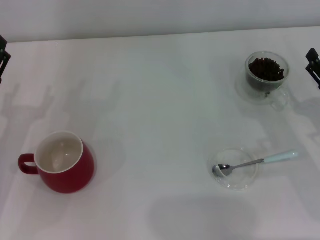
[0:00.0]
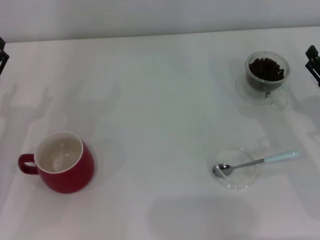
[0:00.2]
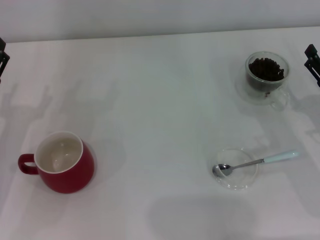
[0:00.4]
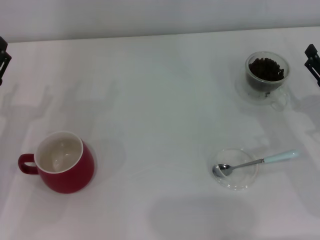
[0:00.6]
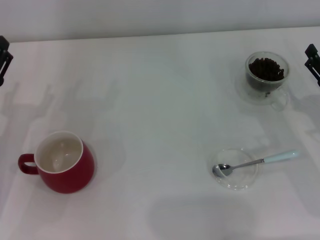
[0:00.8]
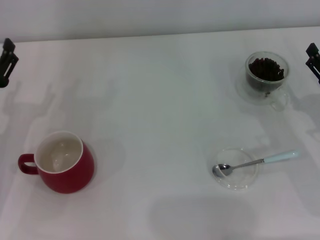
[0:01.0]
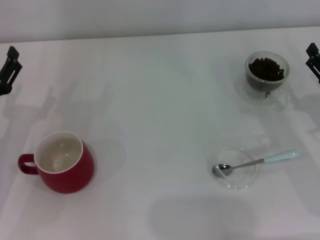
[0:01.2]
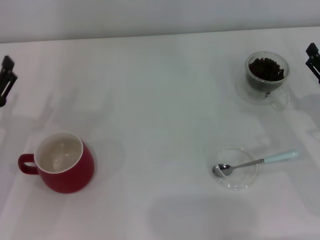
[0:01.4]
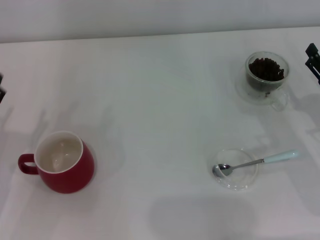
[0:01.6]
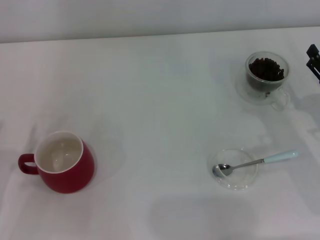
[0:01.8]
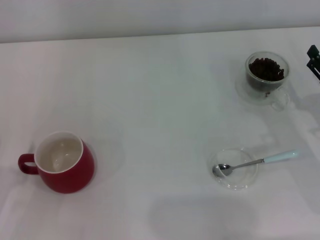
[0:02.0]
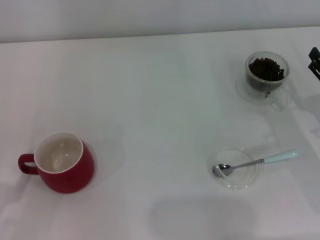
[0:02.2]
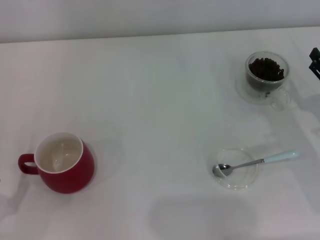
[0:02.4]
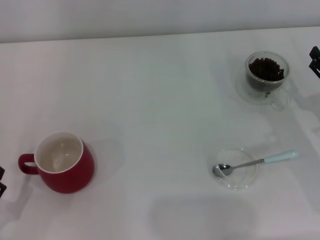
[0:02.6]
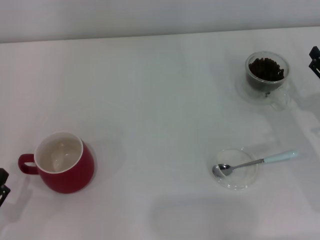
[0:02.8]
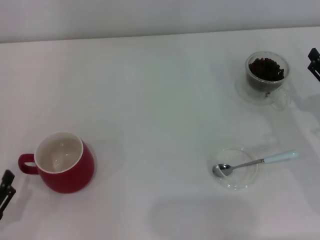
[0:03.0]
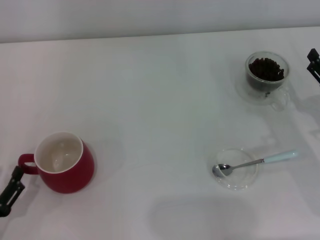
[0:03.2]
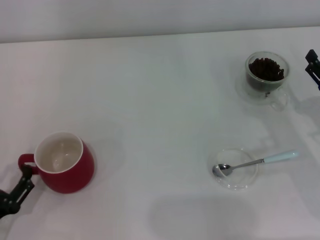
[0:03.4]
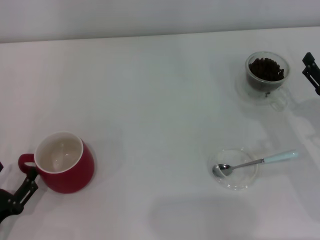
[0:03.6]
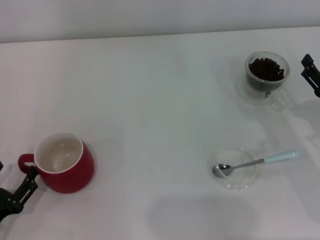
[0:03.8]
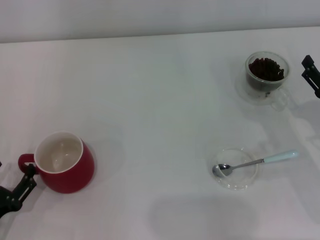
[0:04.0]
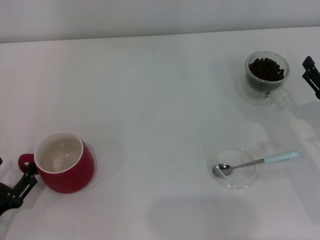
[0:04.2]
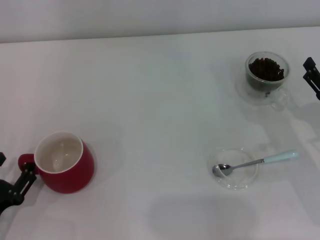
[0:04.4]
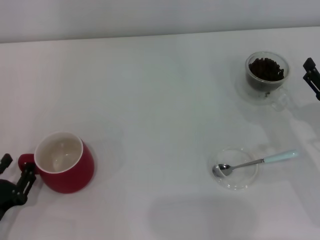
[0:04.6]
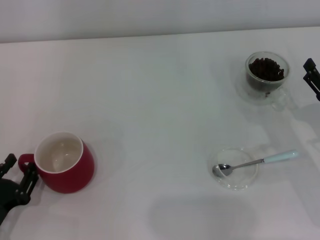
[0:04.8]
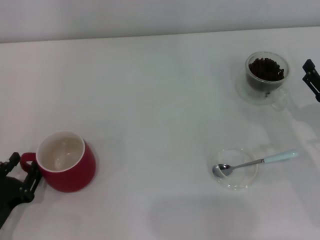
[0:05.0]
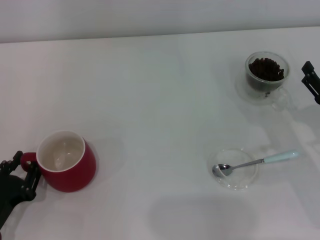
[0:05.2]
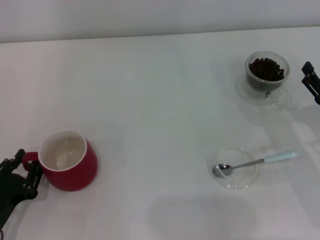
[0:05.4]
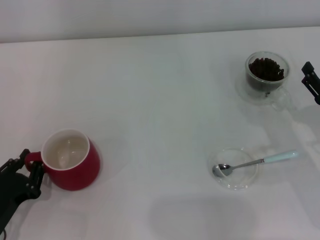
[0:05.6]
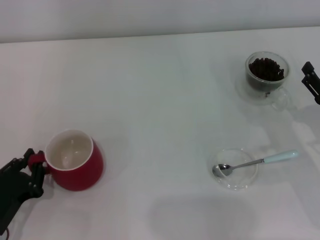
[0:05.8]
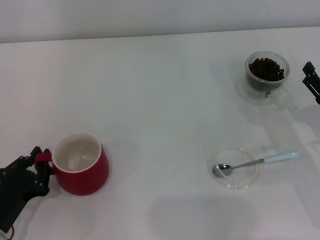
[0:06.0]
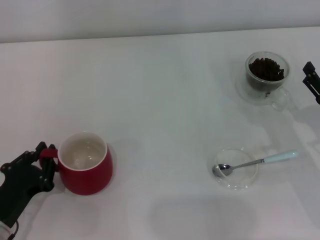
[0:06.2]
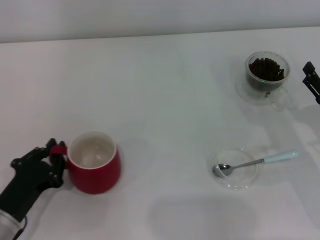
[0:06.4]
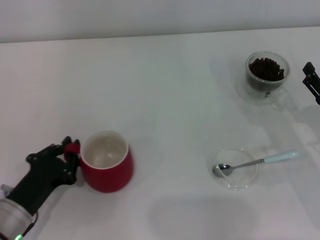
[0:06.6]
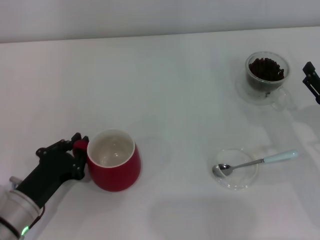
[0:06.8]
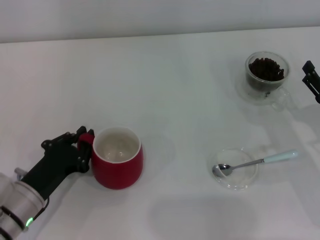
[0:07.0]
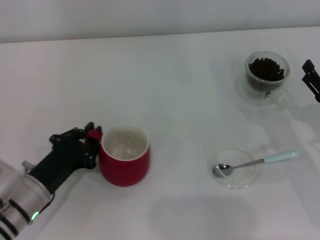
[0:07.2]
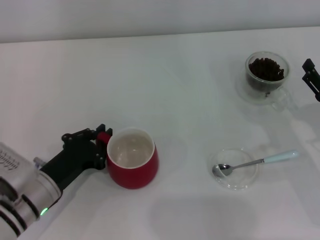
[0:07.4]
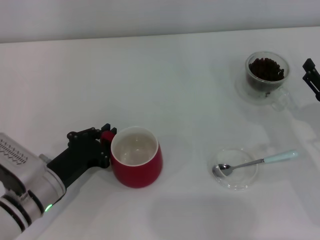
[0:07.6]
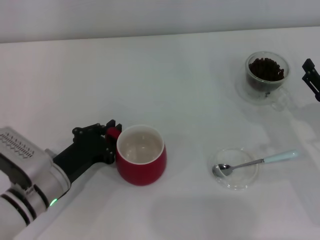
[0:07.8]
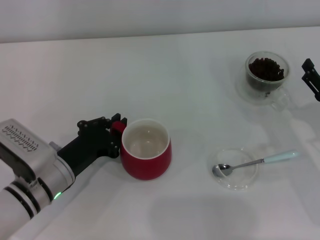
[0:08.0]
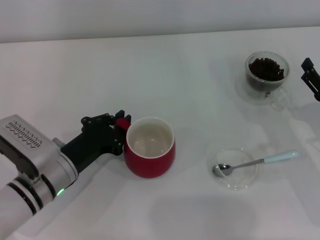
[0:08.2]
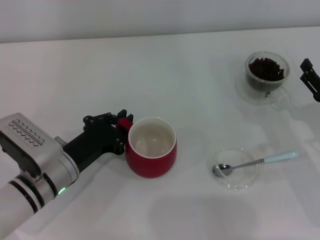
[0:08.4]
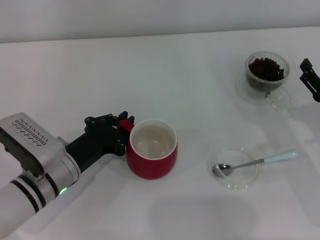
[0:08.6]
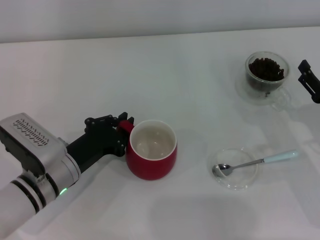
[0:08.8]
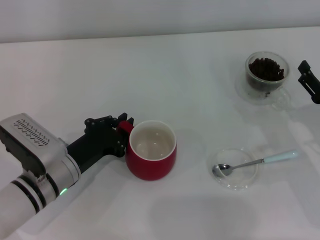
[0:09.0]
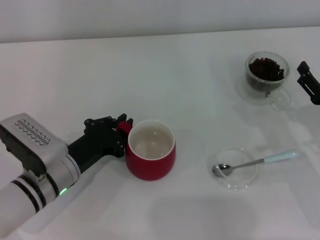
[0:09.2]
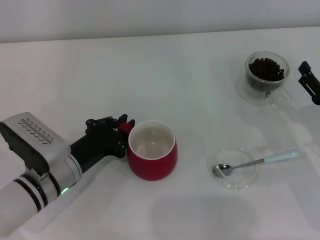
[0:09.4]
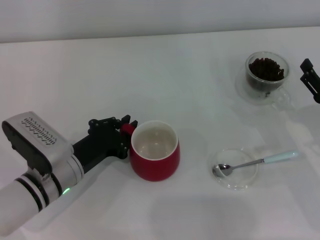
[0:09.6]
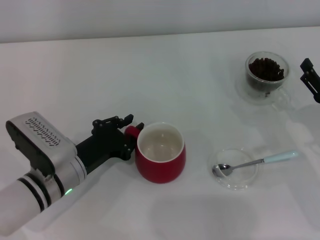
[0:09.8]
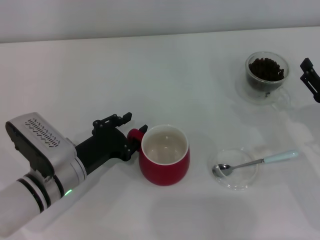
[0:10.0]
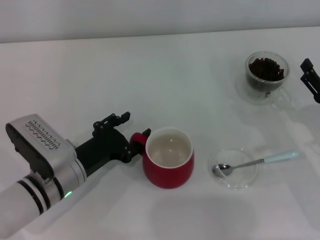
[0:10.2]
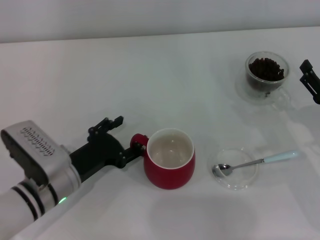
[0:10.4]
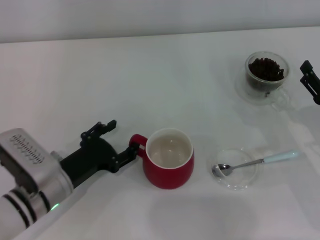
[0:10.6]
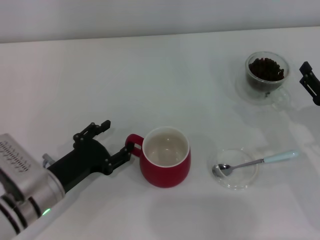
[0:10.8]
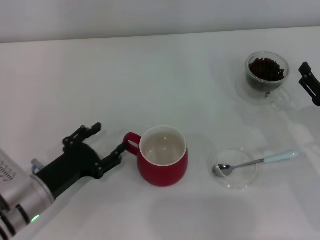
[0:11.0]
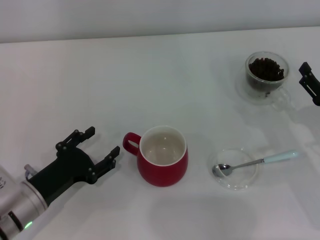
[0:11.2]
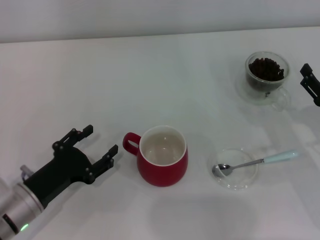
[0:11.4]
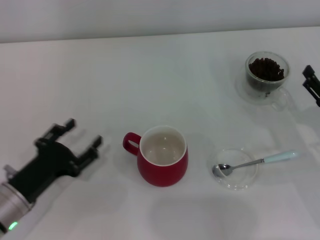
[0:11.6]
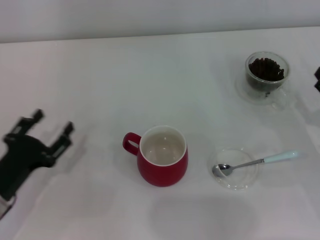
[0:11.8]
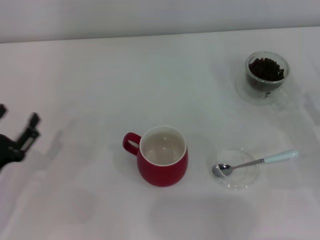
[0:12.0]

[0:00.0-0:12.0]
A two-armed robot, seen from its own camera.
Task of the whole recording: Use a blue spoon to take out the coffee beans from the glass and pour them into the red cup.
Step, 0:00.0 to 0:11.4: Move the cup to the center of view with the left gripper.
0:01.6 to 0:03.0: The left gripper is displaced backward and downward by approximately 10 cm.
0:03.0 to 0:04.4: The grippers move only a little.
0:04.4 to 0:06.0: The left gripper closes up.
0:06.0 to 0:07.6: The left gripper is displaced forward and to the right by about 10 cm.
0:07.6 to 0:09.0: The grippers make only small movements.
0:09.0 to 0:10.4: The left gripper opens.
0:10.4 to 0:12.0: The left gripper travels to the left and backward by roughly 15 cm.

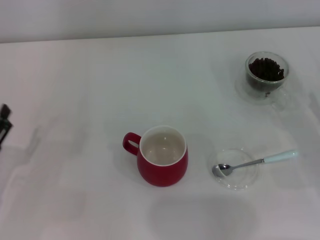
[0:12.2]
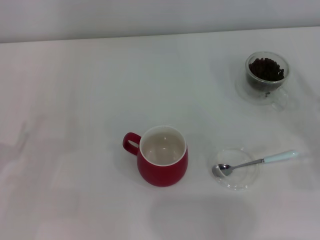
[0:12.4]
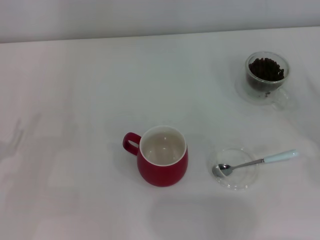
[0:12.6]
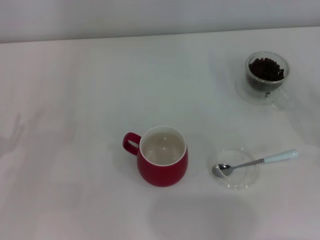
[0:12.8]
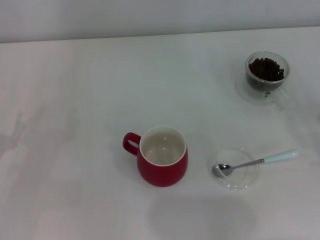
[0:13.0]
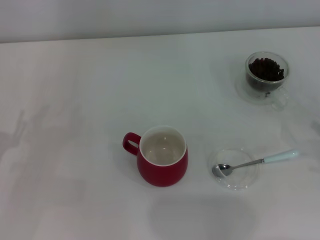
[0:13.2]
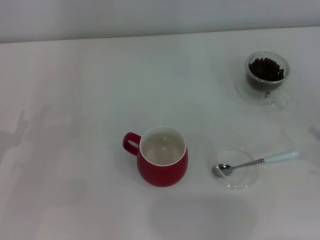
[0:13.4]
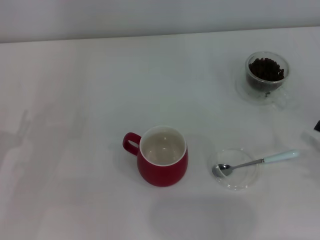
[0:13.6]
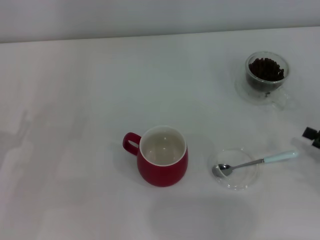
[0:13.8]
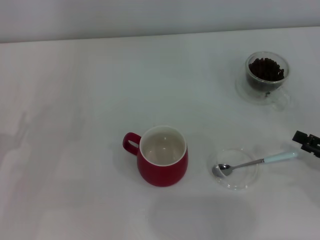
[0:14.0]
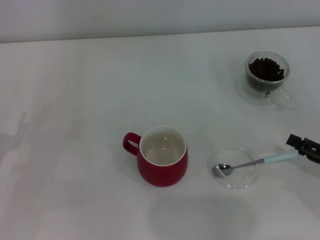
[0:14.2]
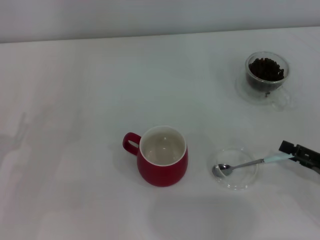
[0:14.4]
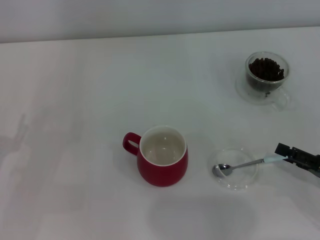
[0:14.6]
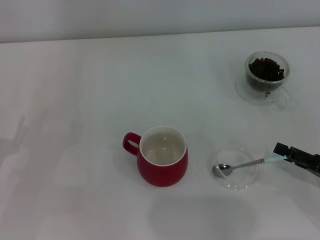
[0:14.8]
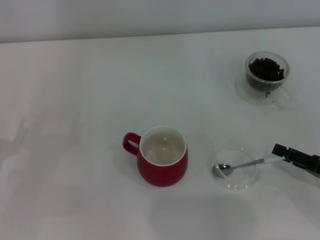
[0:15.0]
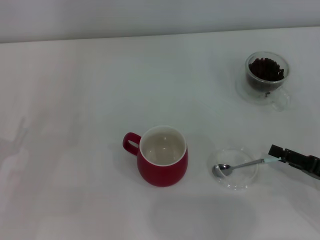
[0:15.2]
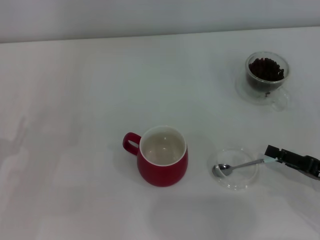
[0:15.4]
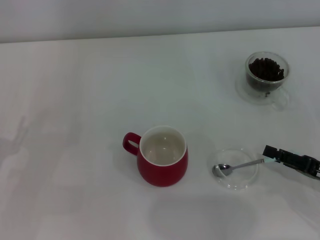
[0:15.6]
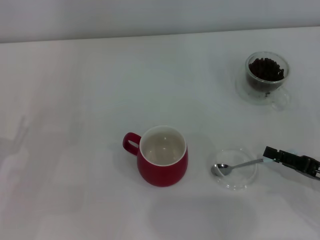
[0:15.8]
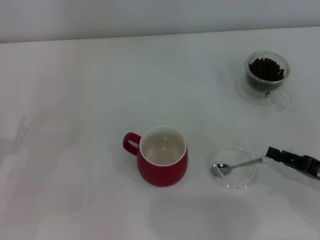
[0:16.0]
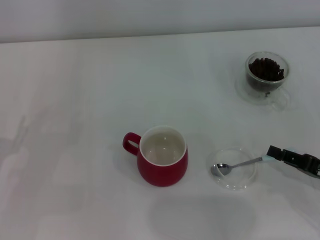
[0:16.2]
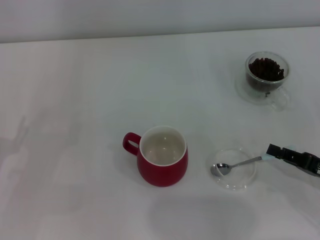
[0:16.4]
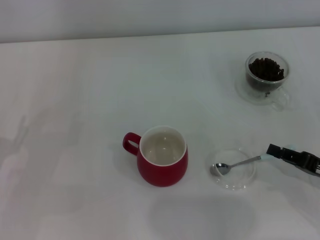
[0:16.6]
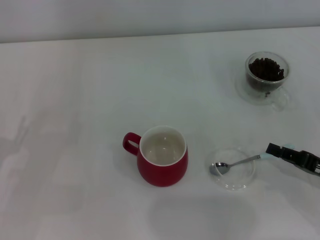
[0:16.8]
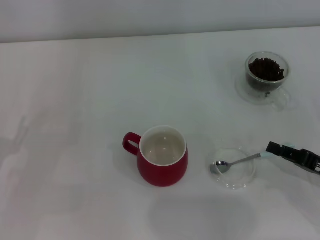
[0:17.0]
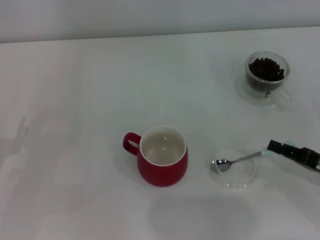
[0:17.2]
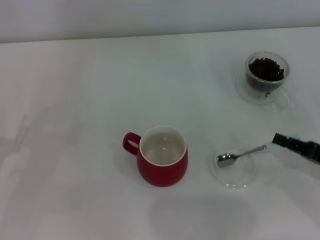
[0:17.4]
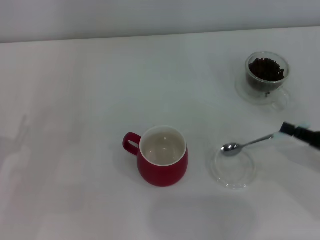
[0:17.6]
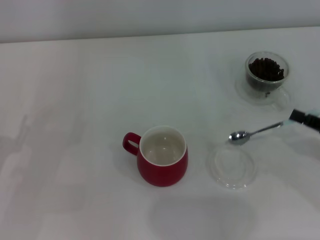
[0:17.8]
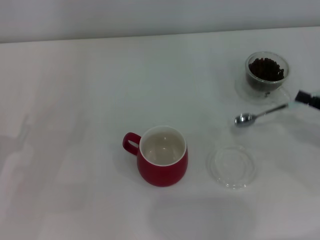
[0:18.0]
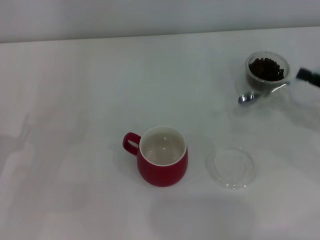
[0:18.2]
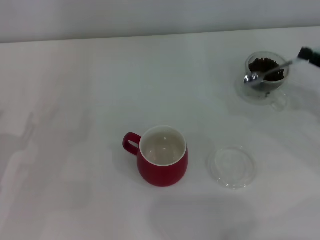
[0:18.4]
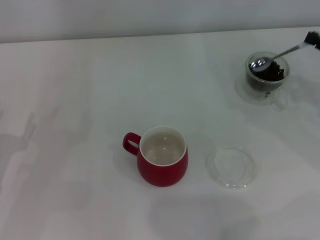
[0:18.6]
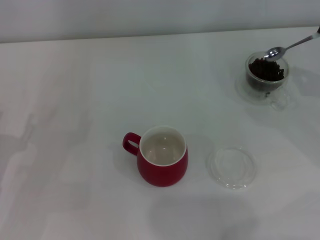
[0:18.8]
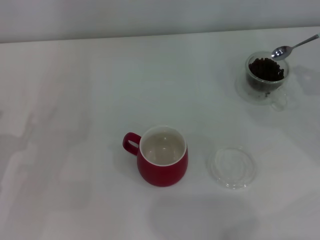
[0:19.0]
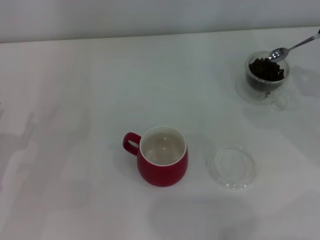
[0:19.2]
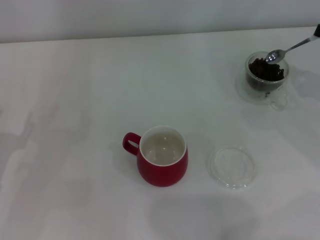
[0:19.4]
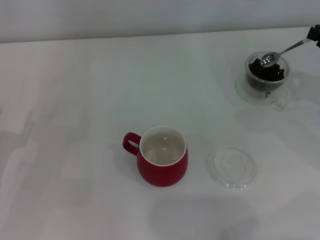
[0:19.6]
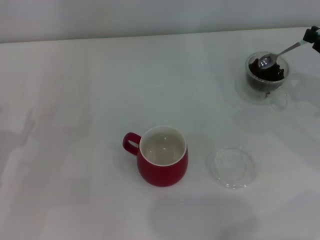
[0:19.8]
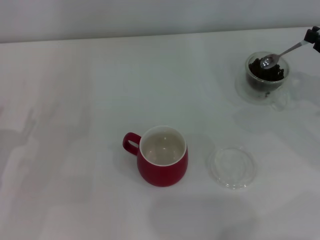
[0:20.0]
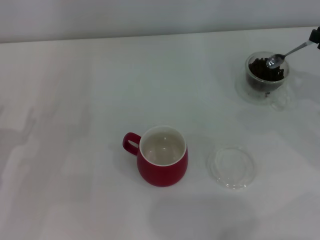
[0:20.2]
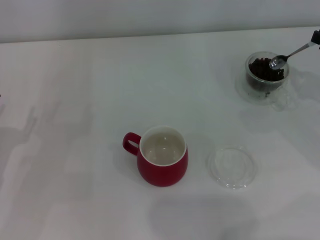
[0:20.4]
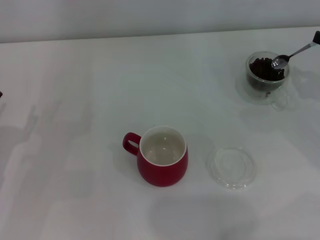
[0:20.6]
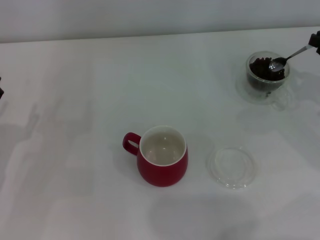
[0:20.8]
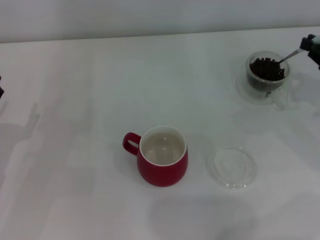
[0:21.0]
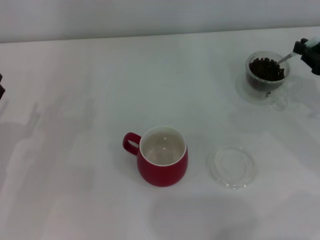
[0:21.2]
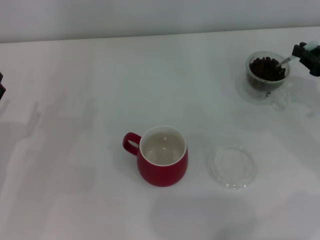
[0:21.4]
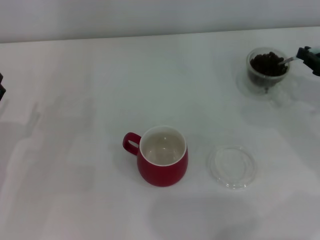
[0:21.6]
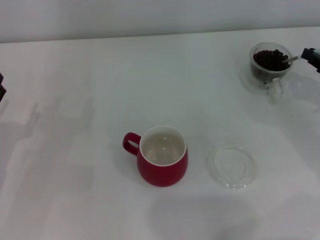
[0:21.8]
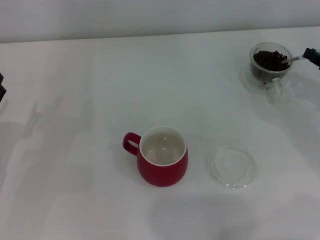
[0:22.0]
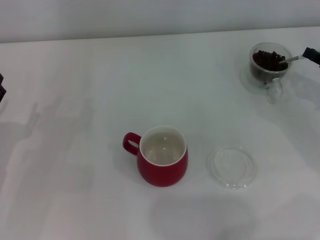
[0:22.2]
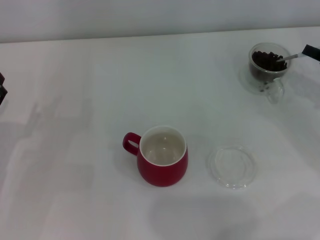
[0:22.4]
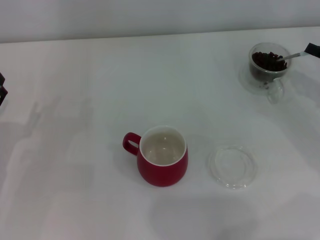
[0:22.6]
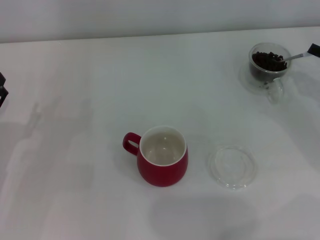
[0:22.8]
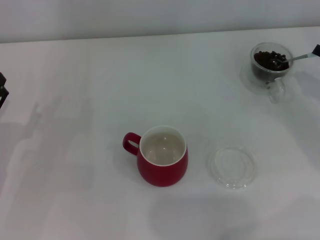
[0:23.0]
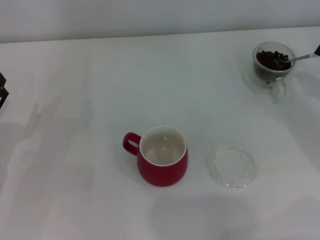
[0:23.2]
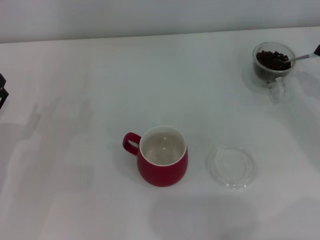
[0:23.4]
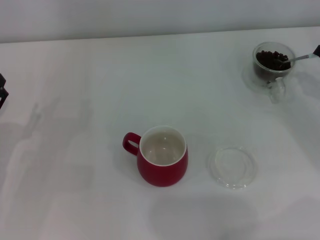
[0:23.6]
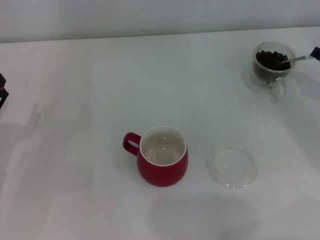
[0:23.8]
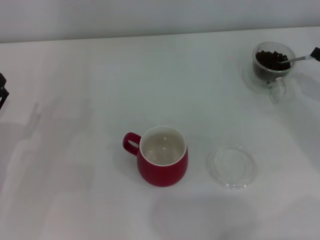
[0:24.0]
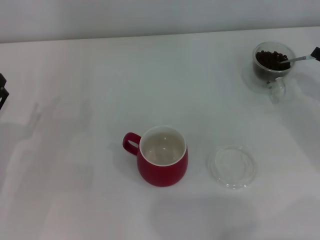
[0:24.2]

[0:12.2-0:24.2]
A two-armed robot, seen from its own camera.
Task of the whole recording: Use a blue spoon to take out the coffee beans from the glass and pour them into the red cup.
Step, 0:12.2 to 0:17.8: Pick up the spoon with the right gripper.
0:13.8 to 0:15.2: The grippers move only a little.
0:15.2 to 0:16.6: The right gripper closes its fingers.
0:16.6 to 0:18.2: The right gripper heads upward and forward, covering approximately 10 cm.
0:19.8 to 0:21.2: The grippers stay close to where they were, moving slightly.
0:22.6 to 0:24.2: The grippers move only a little.
